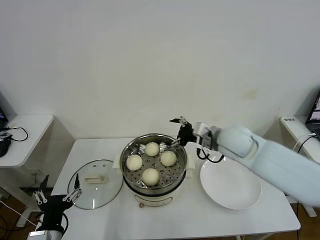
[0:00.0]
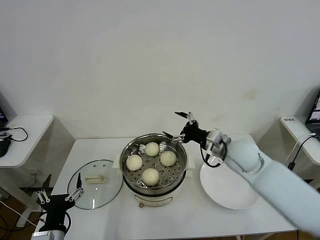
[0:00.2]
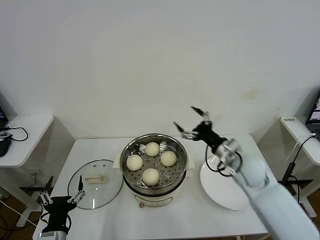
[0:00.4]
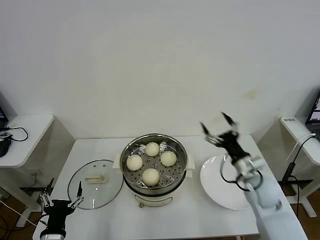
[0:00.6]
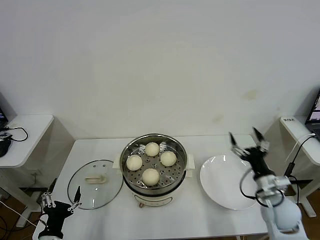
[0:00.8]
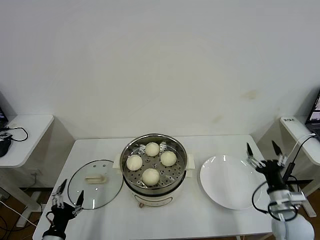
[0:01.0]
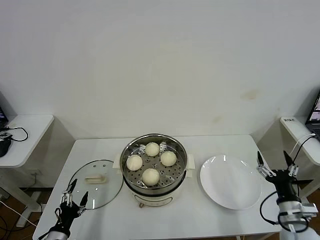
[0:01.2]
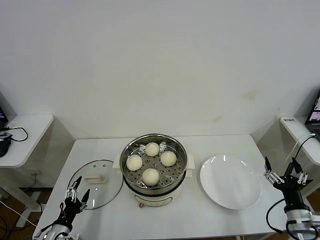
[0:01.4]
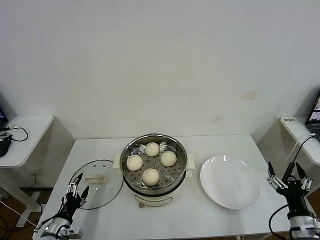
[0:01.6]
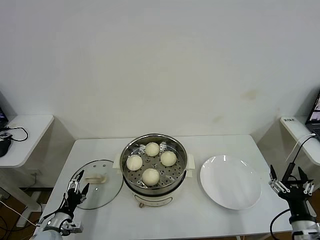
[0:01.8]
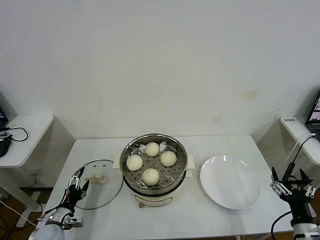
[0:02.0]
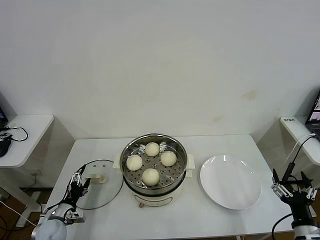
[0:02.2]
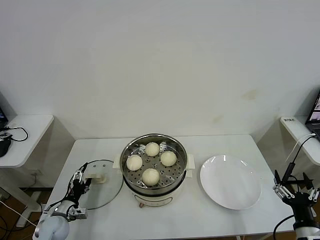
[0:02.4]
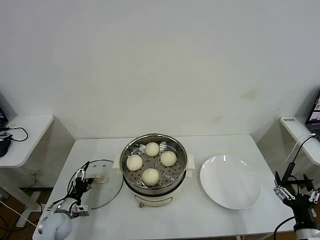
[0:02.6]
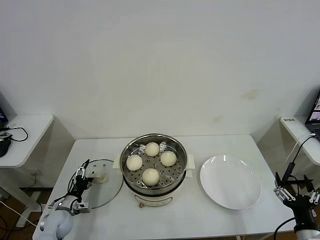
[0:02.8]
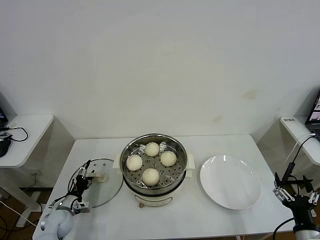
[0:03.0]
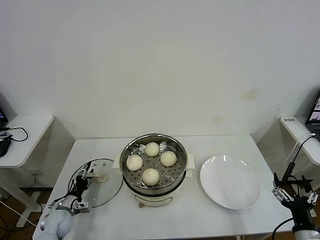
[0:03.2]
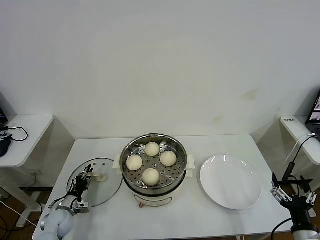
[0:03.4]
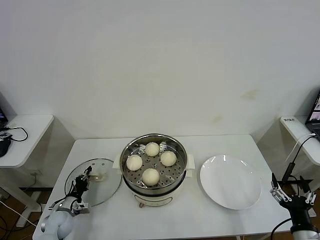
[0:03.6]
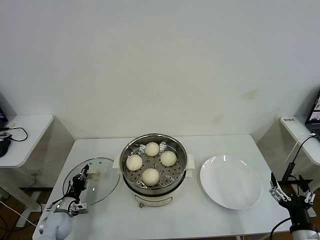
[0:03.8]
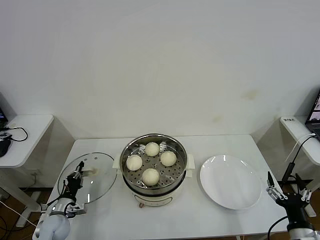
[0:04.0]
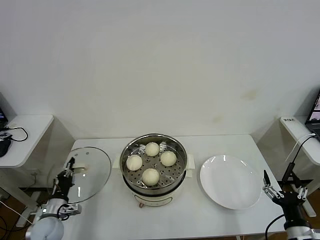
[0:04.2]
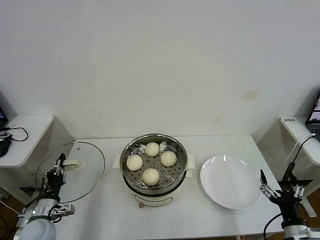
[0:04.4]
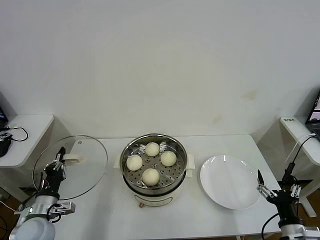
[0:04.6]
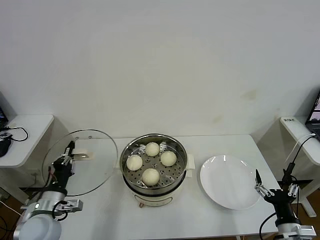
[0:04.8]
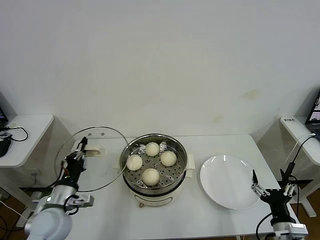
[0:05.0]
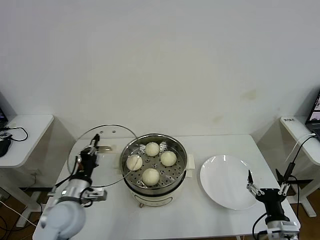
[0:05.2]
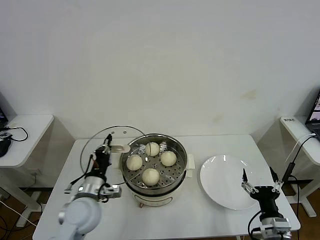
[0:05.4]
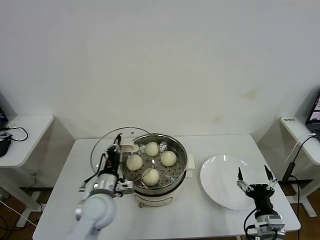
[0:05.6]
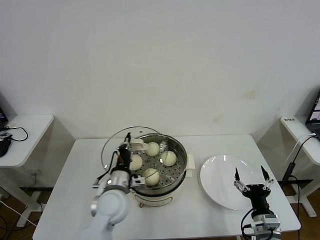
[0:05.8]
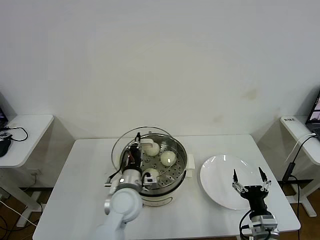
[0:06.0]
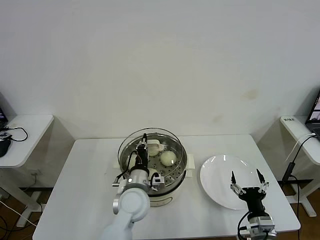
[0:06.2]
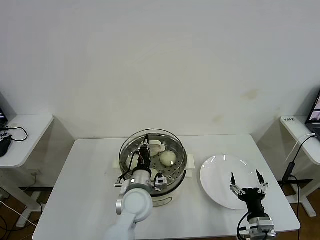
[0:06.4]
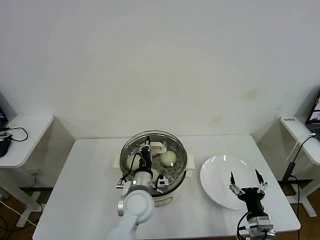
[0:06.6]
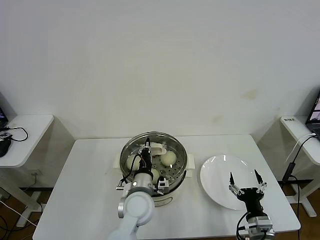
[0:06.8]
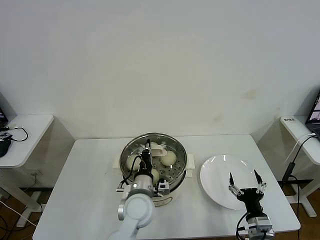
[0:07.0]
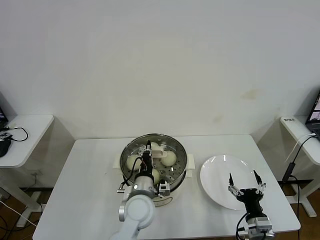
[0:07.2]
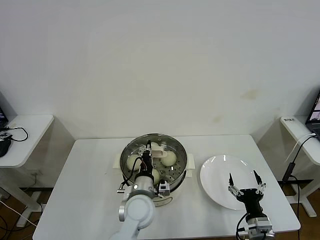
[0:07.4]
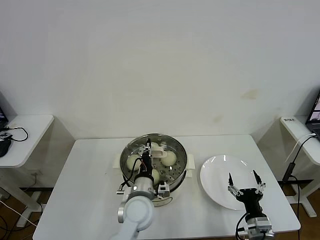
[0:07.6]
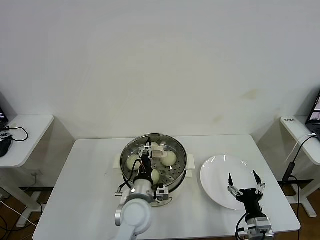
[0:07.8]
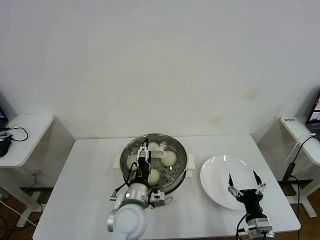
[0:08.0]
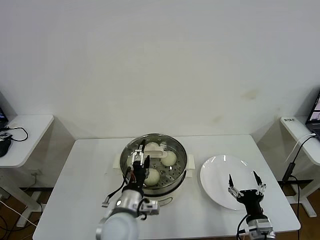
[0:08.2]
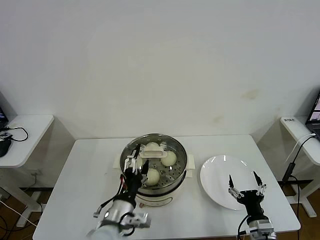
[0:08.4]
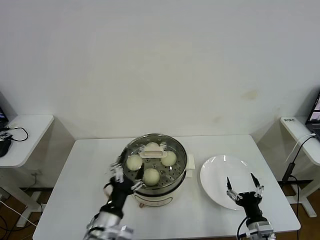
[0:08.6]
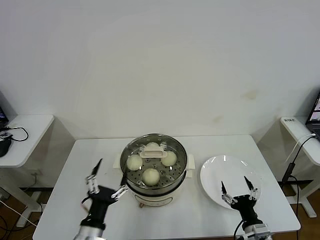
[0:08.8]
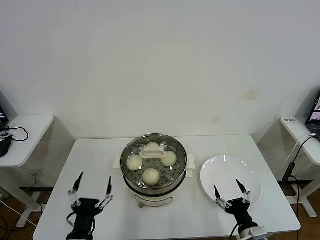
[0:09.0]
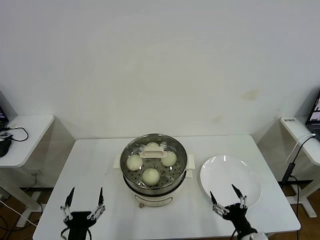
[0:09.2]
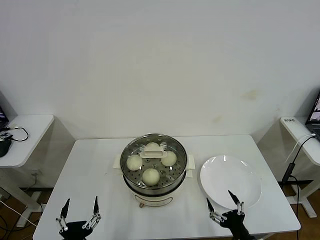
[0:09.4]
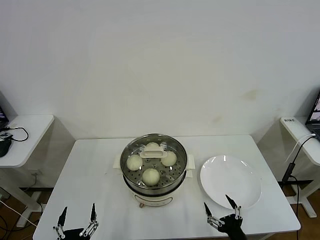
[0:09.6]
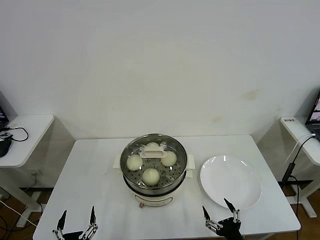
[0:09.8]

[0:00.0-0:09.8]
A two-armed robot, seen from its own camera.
Task of the whole recording: take steamed baozi put them in steamer then cover it.
Step, 0:00.0 to 0:03.6: Grasp the pot lid with left gripper.
Step, 0:03.8 to 0:07.8: Place the pot lid on the steamer with left gripper.
0:00.0 to 0:01.4: The right gripper shifts approximately 35 cm backward, to the right and downward; the left gripper shifts about 15 cm downward and to the left.
0:01.4 to 0:02.8: The left gripper goes approximately 15 cm forward. The right gripper travels backward by roughly 5 cm.
0:02.8 to 0:04.2: The left gripper closes up.
0:04.2 to 0:05.6: The right gripper moves to the left, roughly 5 cm; the left gripper moves to the right and upward, about 25 cm.
0:05.6 to 0:07.0: The left gripper shifts approximately 15 cm to the right.
0:07.0 to 0:08.4: The left gripper heads backward and to the left, covering about 10 cm, and opens its fingers.
0:08.4 to 0:09.8: The left gripper heads backward, to the left and downward, covering some 20 cm; the right gripper moves backward, about 5 cm.
